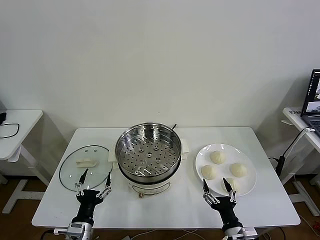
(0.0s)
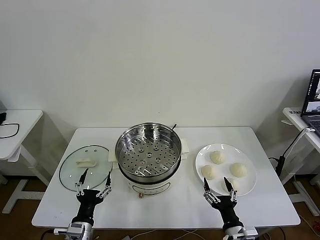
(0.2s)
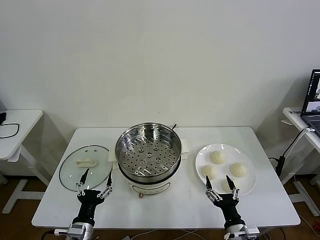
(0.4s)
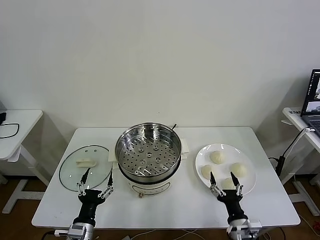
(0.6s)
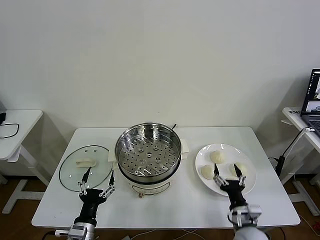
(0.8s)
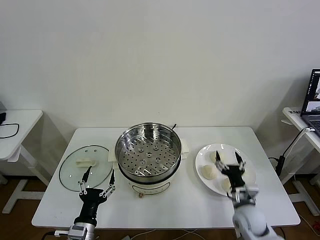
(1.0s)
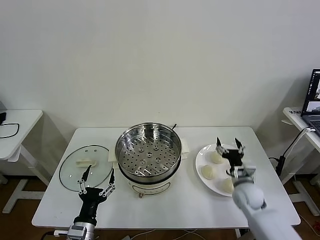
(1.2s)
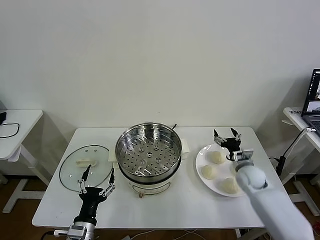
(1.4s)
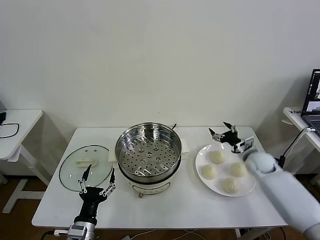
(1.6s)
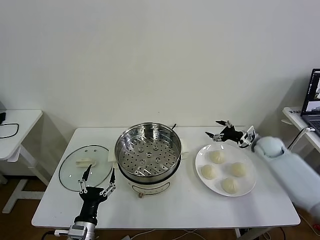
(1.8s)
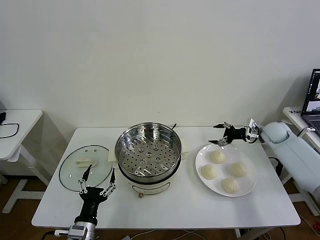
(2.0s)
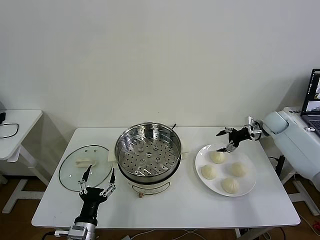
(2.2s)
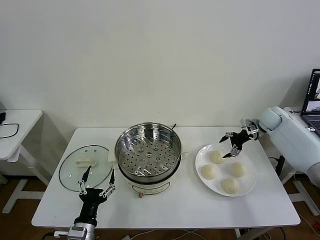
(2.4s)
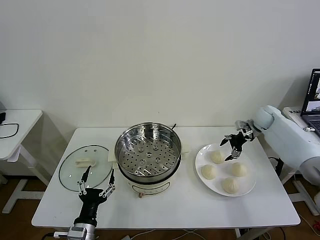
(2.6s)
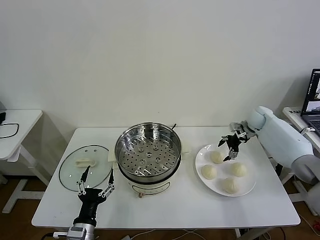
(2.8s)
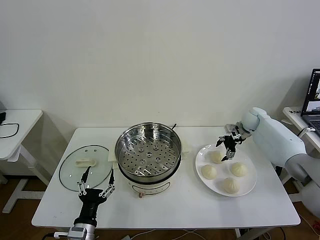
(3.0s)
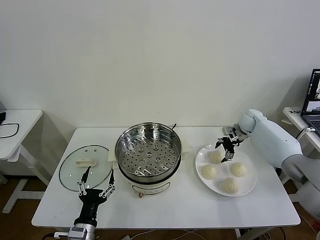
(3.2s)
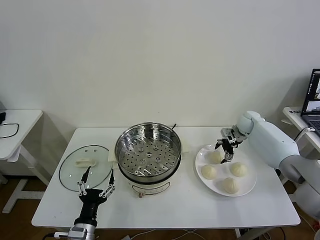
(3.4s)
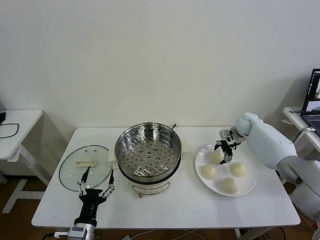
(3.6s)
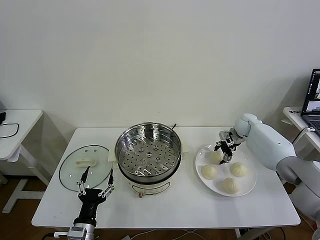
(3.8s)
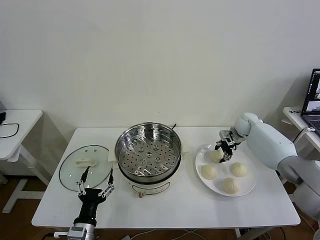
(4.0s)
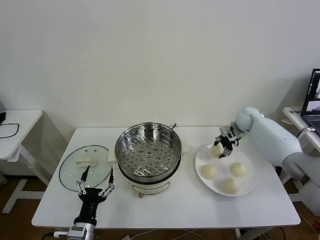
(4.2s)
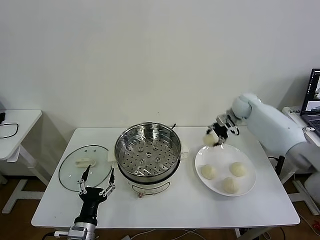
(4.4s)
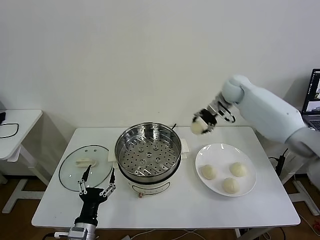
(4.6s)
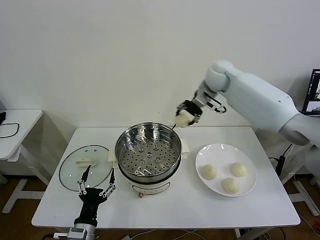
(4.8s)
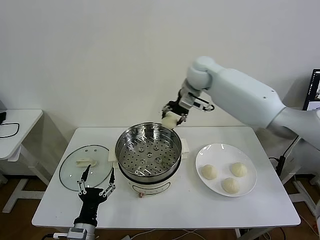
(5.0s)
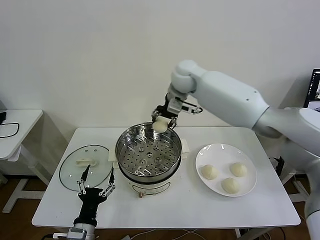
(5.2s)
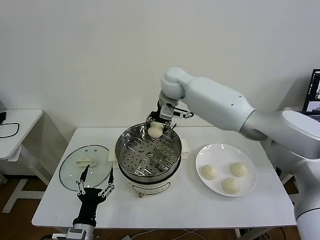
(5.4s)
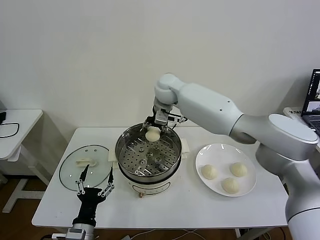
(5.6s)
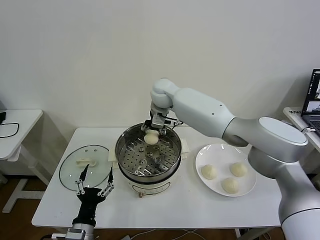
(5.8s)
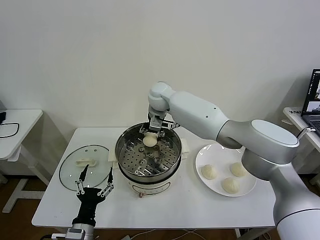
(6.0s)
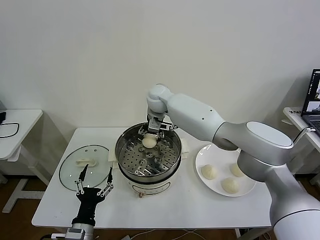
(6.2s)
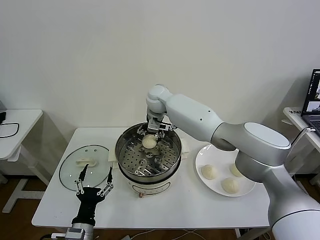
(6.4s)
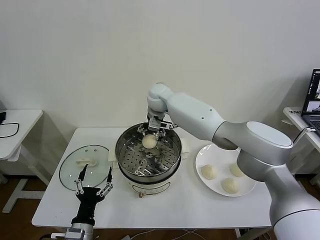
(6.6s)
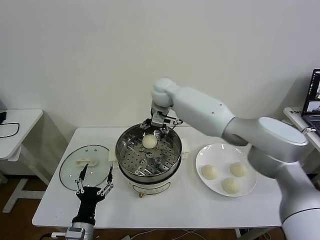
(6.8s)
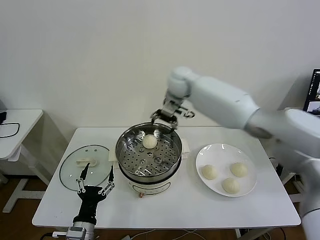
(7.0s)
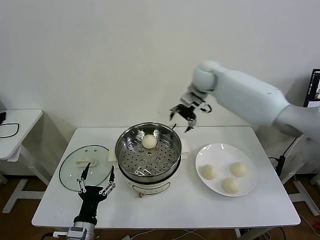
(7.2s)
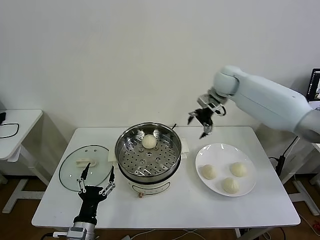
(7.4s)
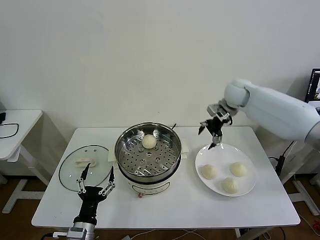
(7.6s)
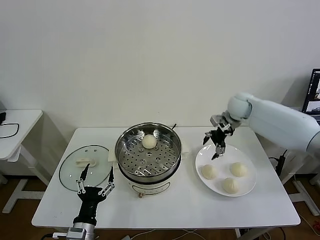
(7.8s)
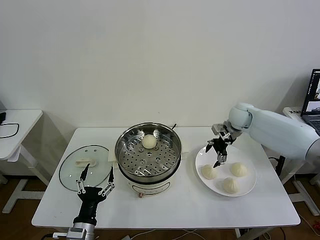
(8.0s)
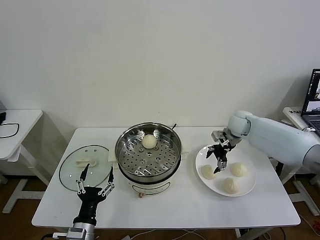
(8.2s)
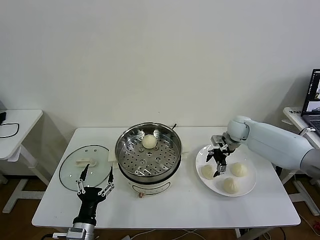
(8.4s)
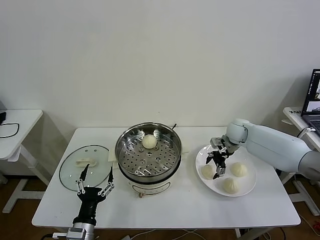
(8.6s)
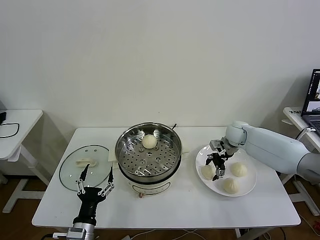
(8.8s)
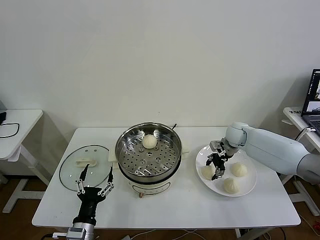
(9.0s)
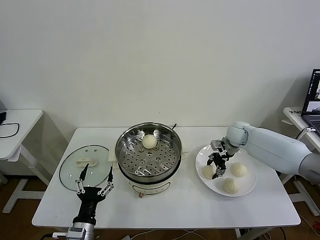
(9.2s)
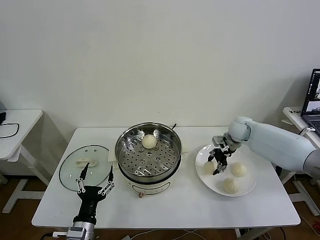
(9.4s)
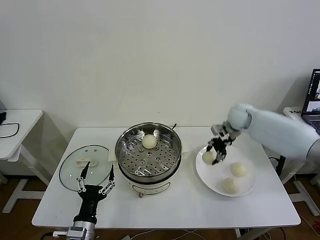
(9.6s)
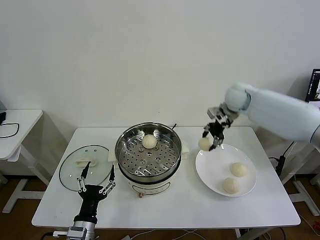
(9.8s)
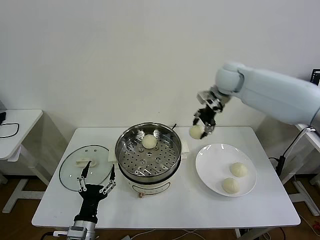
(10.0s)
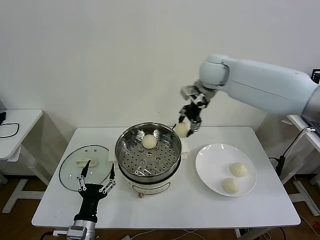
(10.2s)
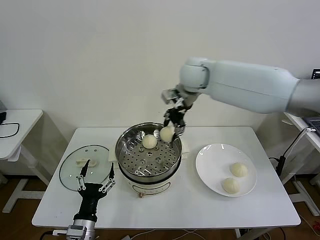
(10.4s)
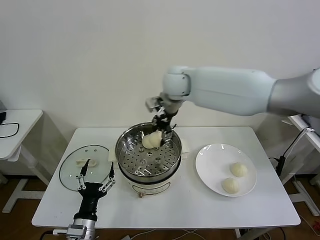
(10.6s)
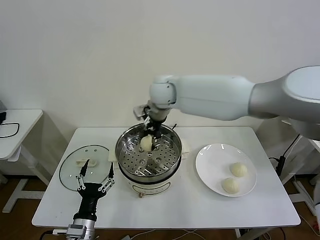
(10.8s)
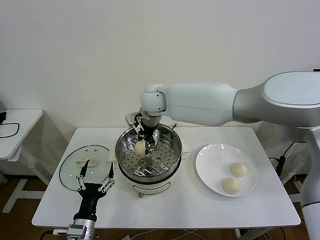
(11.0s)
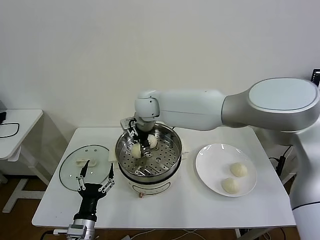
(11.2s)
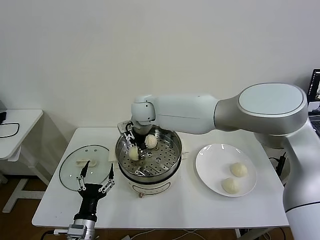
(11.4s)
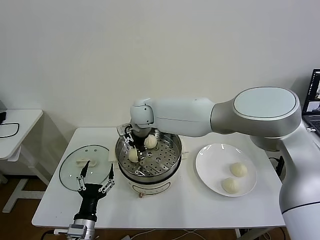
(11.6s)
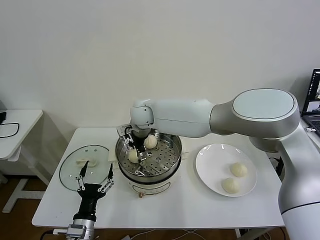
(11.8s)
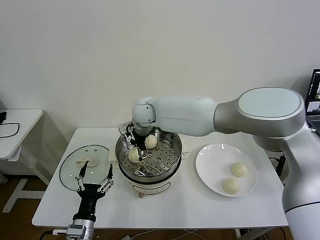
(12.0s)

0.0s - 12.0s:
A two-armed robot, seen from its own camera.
Task of the whole recording: take steamed baozi put them in steamer then cover it.
Step, 0.0s - 3.8s: Grasp the baozi in the plate with right gripper.
Step, 4.2s - 7.0s: Place the baozi on the steamer with right gripper.
Step, 7.2s - 9.2s: Grasp the baozi in the plate with right gripper.
Step, 9.4s - 12.0s: Place the baozi on the steamer with right gripper.
1.6s - 3.0s: The right gripper travels forward and upward by some 15 cm.
3.0s - 4.4s: The right gripper shifts about 15 cm upward and to the left, and closes up.
4.4s - 6.0s: The right gripper moves to the left, approximately 30 cm.
6.0s - 7.6s: The right gripper goes about 30 cm to the right, and opens its fingers.
7.6s - 9.0s: The right gripper travels downward by roughly 15 cm, and closes its fingers.
9.0s - 10.4s: The right gripper travels upward and to the left by approximately 35 cm.
10.4s - 12.0s: The right gripper is displaced to the left and downward by about 15 cm, and opens its fingers.

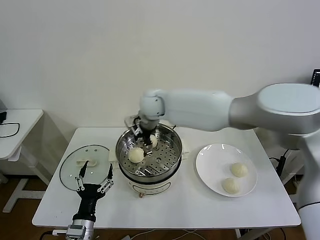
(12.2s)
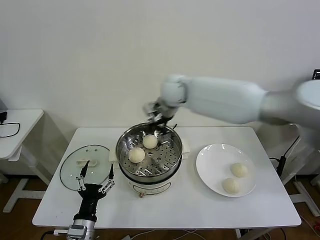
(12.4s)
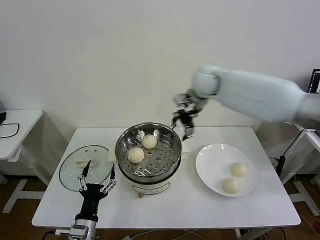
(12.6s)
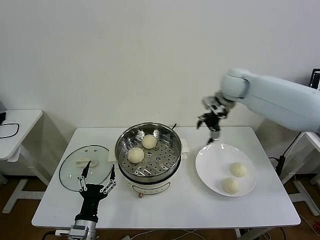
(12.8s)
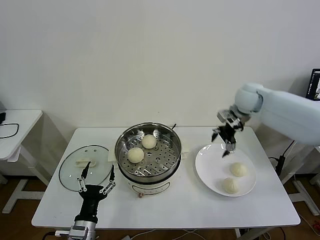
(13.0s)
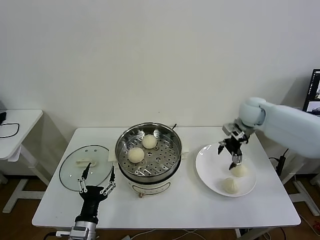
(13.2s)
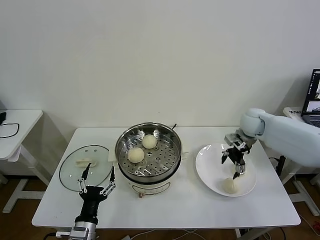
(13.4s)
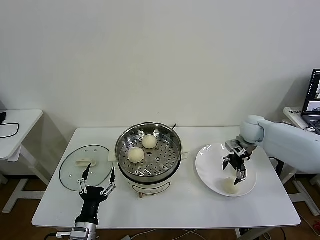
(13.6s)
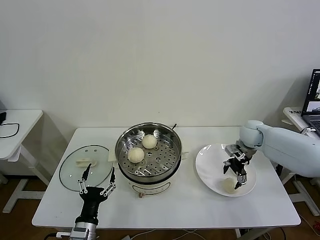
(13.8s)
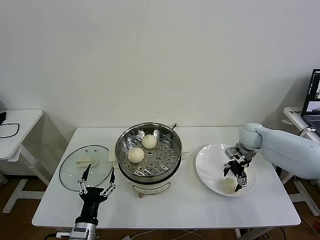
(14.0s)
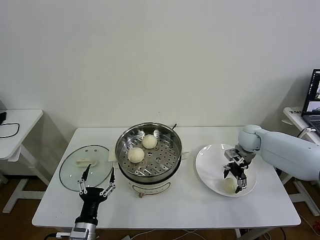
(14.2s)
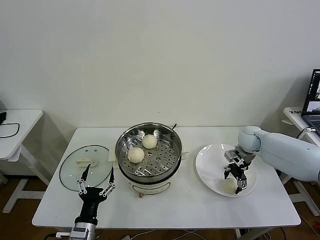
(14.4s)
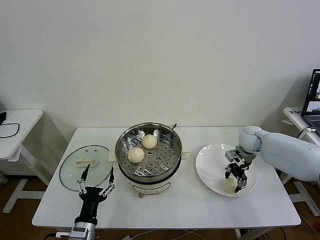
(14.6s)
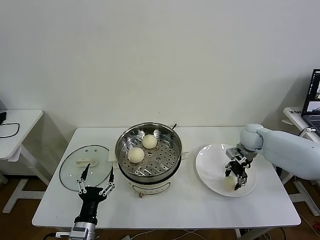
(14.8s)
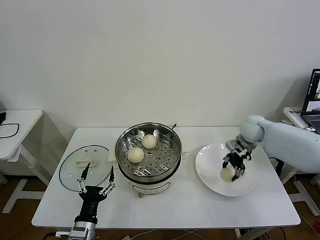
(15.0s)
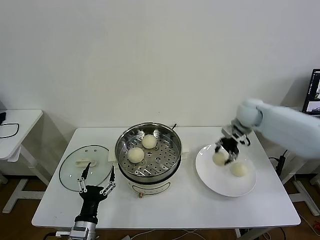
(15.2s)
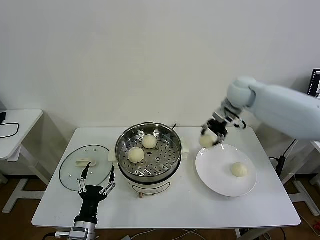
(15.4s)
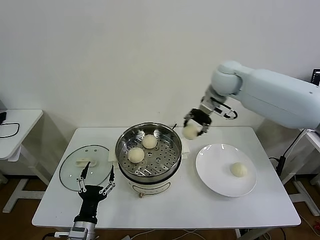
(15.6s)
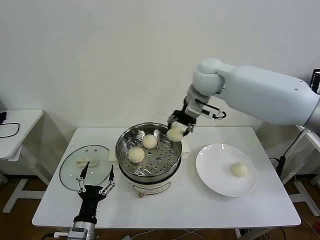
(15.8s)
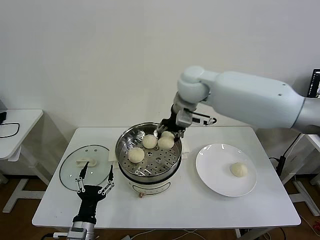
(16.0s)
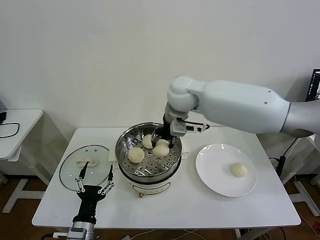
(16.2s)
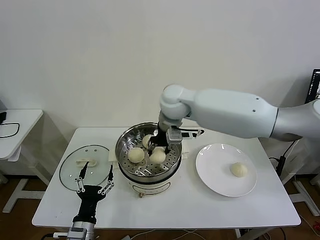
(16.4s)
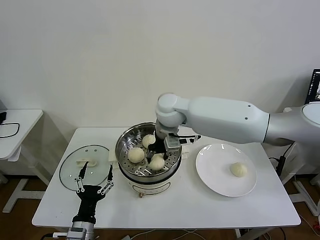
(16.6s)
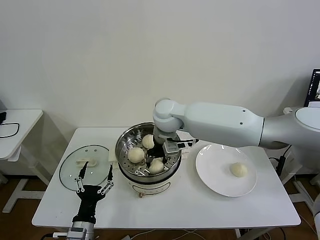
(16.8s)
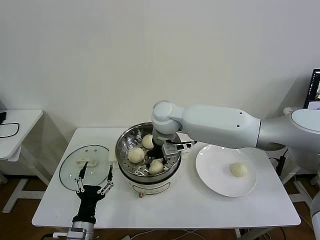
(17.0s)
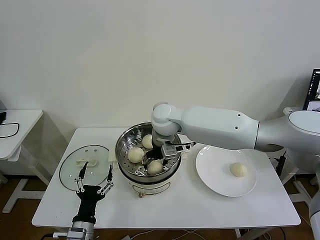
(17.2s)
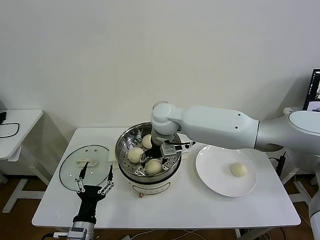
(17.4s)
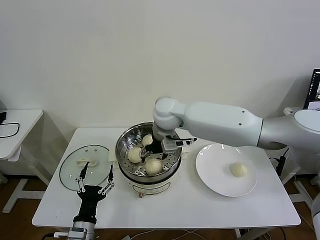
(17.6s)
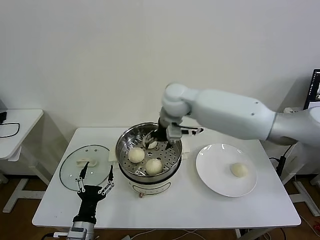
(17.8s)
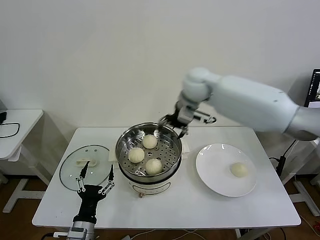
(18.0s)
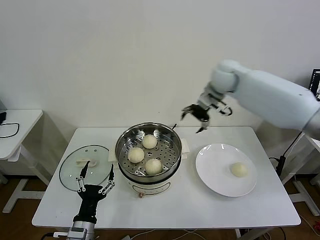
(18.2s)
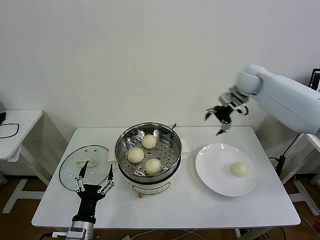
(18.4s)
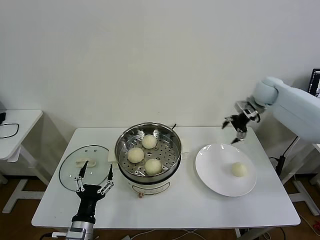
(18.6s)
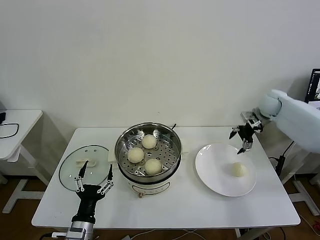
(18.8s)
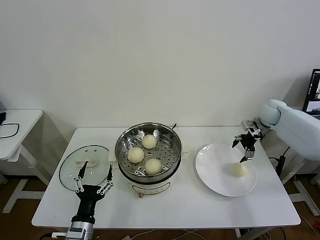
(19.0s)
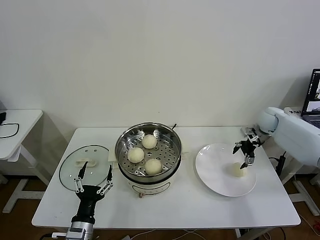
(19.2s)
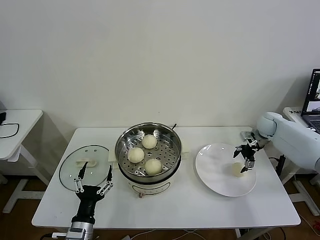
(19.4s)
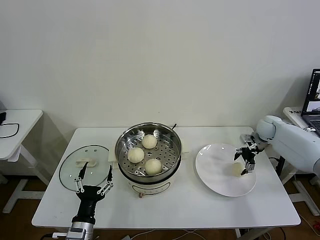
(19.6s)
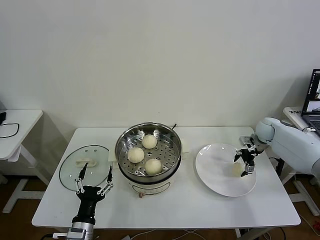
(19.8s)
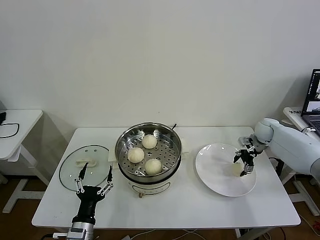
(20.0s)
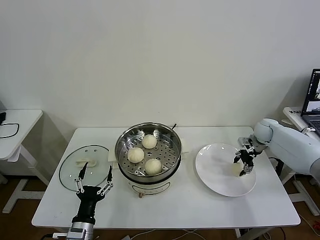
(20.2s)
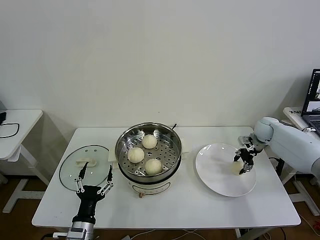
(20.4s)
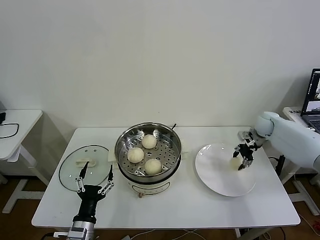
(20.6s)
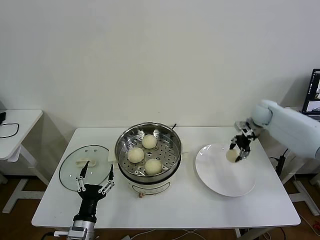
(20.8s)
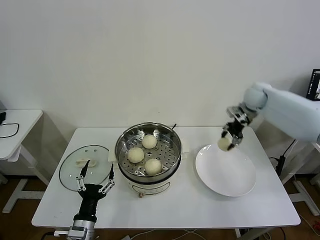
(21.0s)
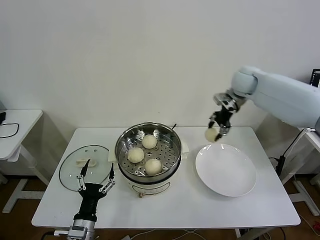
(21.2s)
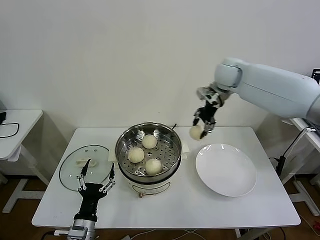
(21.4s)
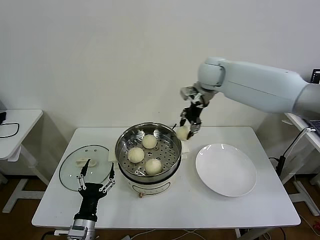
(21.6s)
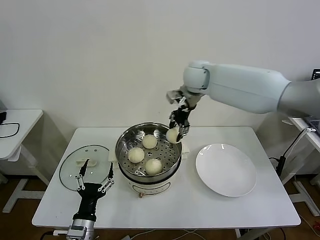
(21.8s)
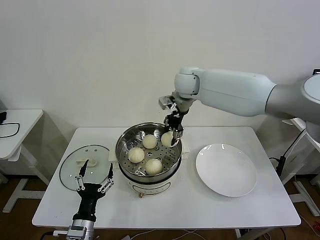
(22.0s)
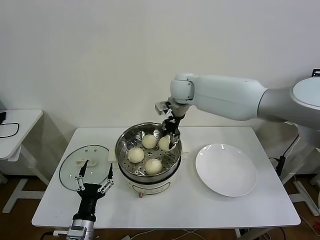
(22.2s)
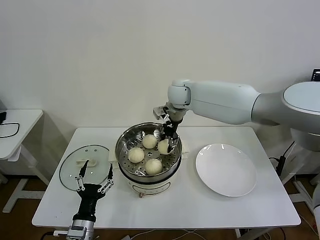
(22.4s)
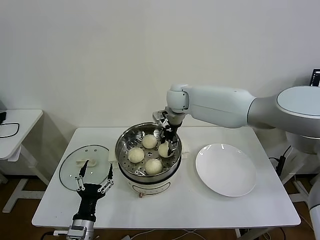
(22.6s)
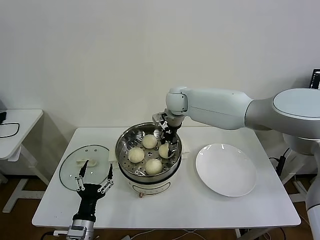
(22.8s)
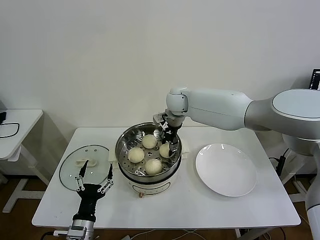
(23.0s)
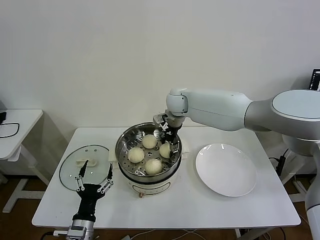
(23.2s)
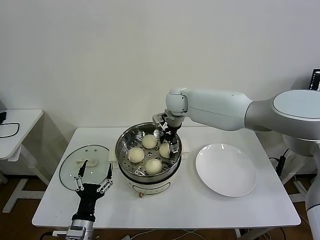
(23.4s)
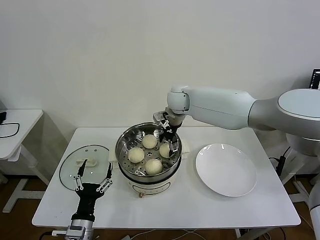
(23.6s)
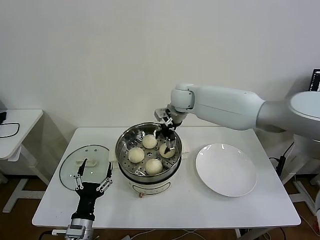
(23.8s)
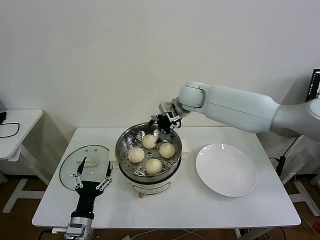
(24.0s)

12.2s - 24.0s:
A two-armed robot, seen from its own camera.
Task of the whole recording: take steamed baozi put them in steamer then cover it.
Step, 12.2s - 14.8s: Grasp the baozi in the plate with right gripper.
Step, 15.0s - 17.8s: Place the baozi on the steamer with right gripper.
Step, 18.0s - 20.4s: Grasp the baozi in the plate with right gripper.
Step, 20.6s - 23.8s: Place the baozi on the steamer with right gripper.
12.2s - 13.6s: The right gripper moves to the right, about 35 cm.
13.6s - 15.2s: The right gripper shifts approximately 10 cm upward, and closes up.
15.2s - 16.6s: The right gripper moves to the left, roughly 30 cm.
16.6s - 18.2s: The right gripper goes approximately 20 cm to the right and forward, and opens.
18.2s - 19.6s: The right gripper moves downward and to the right, roughly 30 cm.
19.6s - 21.0s: The right gripper is displaced upward and to the left by roughly 15 cm, and closes its fingers.
21.0s - 22.6s: The right gripper heads to the left, covering about 30 cm.
22.6s - 24.0s: The right gripper opens up.
